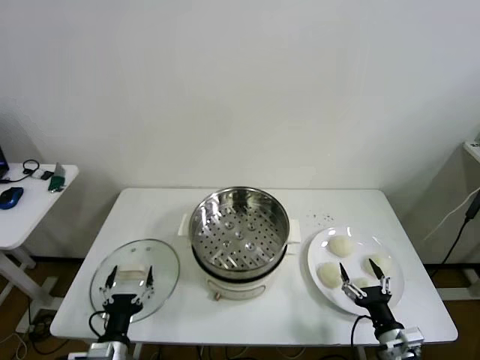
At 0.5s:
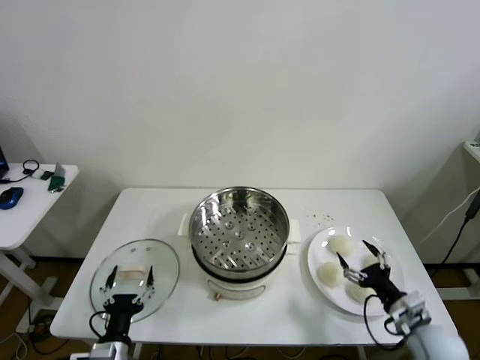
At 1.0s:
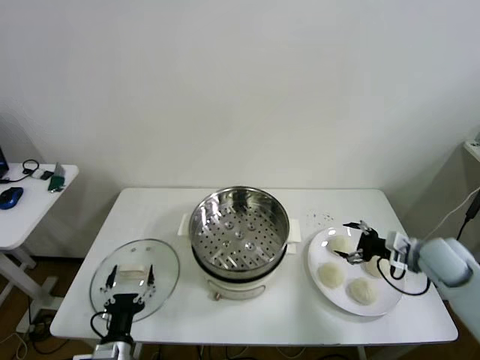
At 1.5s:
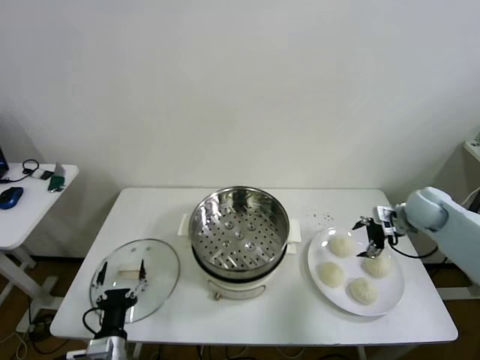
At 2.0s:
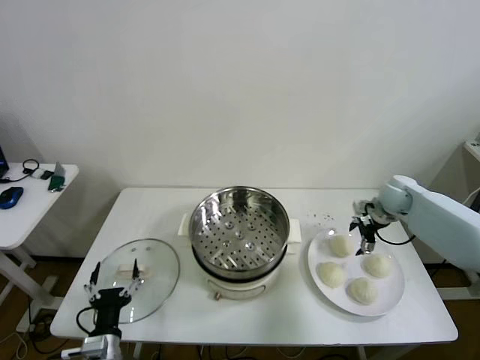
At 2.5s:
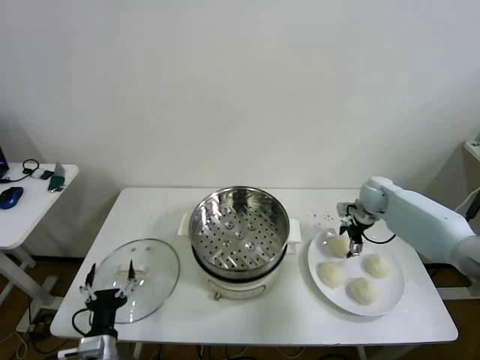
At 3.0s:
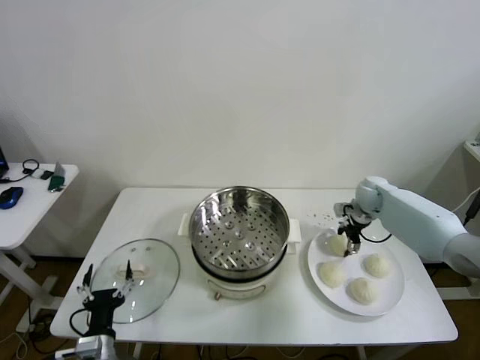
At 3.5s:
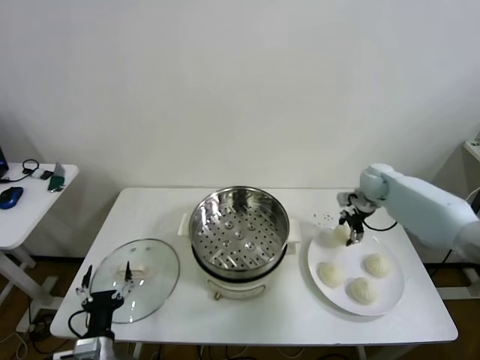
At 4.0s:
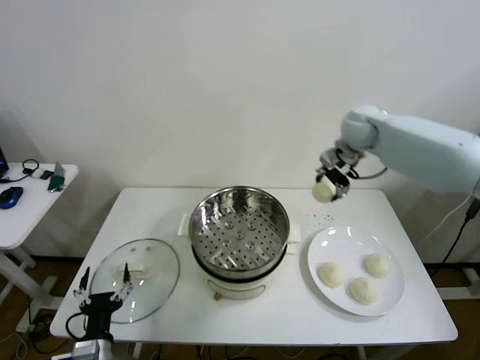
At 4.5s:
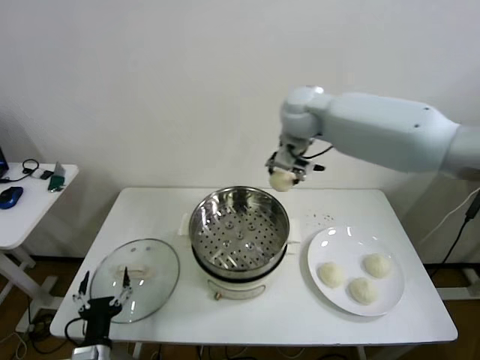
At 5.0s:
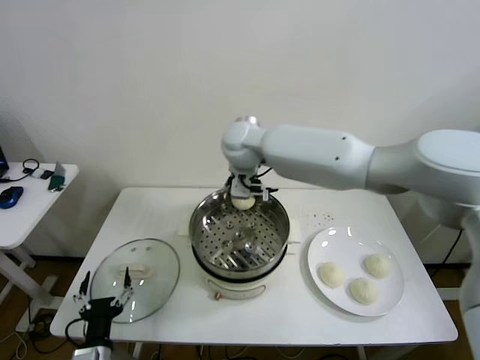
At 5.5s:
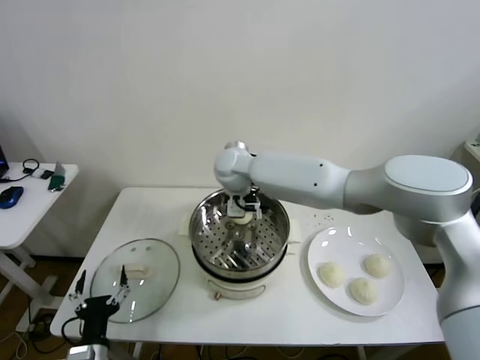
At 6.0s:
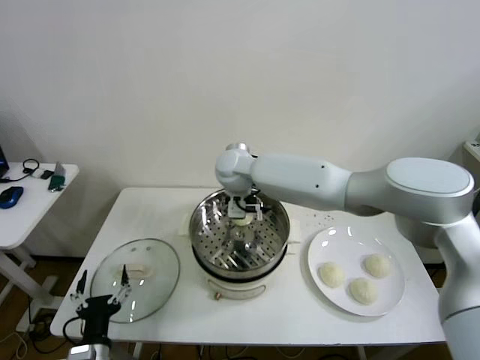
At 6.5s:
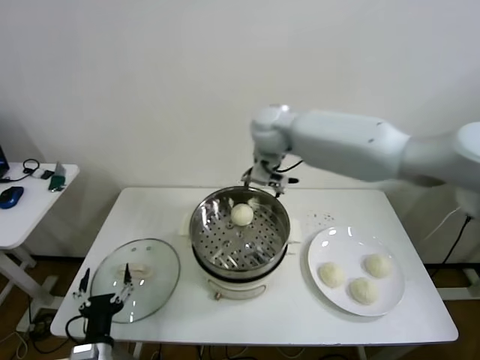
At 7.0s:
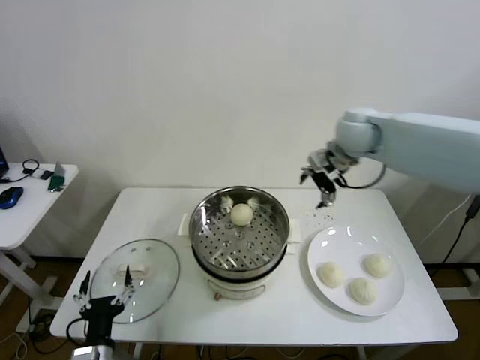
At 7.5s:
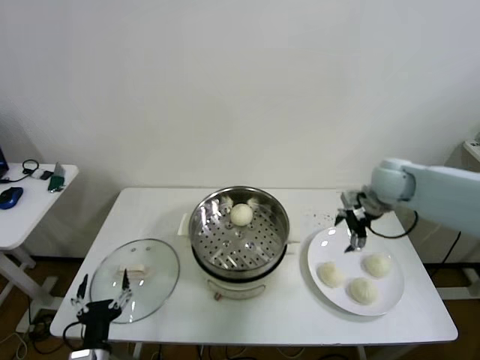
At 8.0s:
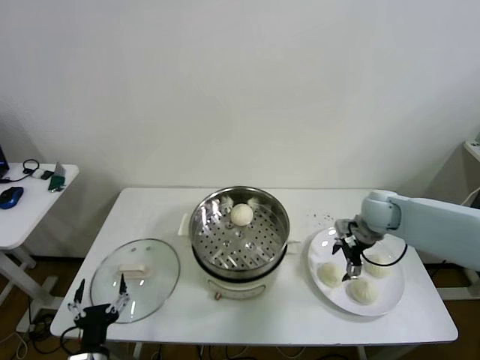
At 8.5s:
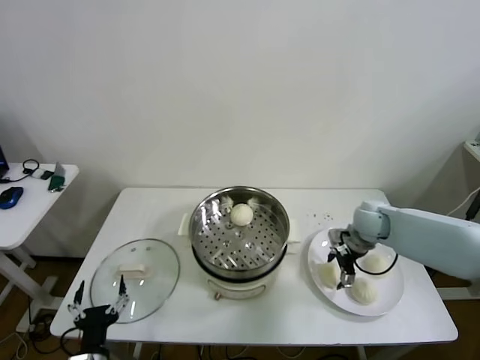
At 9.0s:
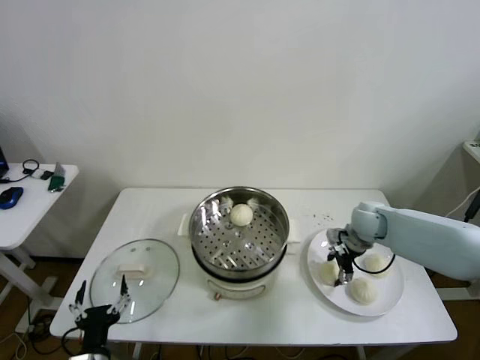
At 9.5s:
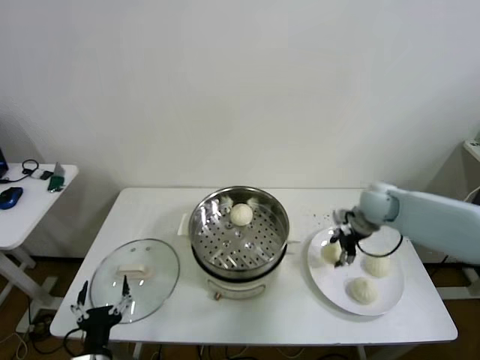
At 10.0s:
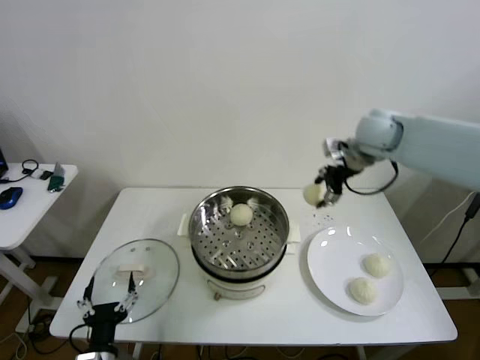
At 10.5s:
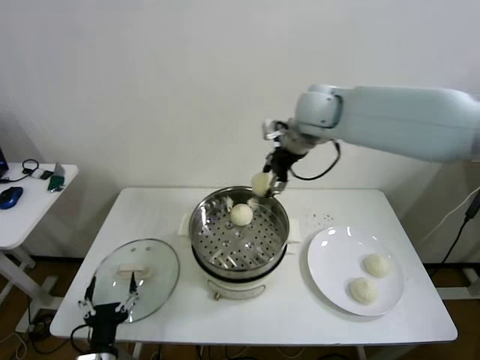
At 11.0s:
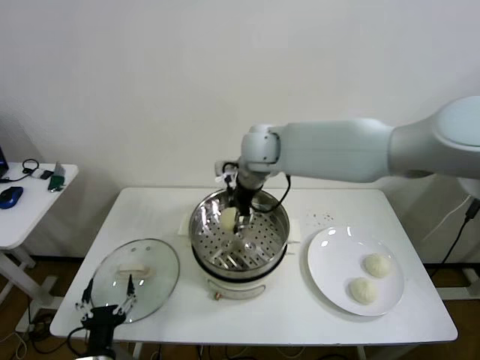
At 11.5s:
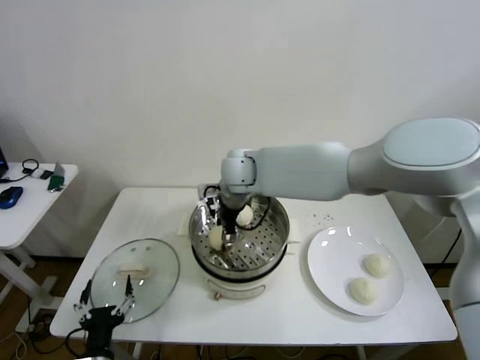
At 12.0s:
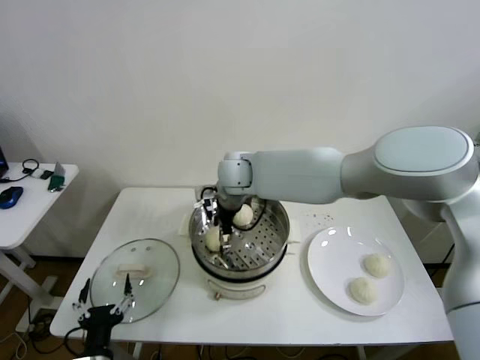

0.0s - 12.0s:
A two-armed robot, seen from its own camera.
Step, 0.0s - 2.5s: Grasp the baozi in the plate with right gripper.
Step, 3.5s - 5.5s: Place the baozi on the steamer with right gripper.
Step, 6.5s - 8.5s: Grasp the baozi in the plate with right gripper.
2.0s - 4.0s: The right gripper heads upward and to the left, covering about 25 cm, and closes.
4.0s - 6.0s: The right gripper moves to the left, about 25 cm, and opens up.
6.0s - 8.0s: The right gripper is displaced to the right by approximately 35 cm.
8.0s - 10.0s: The right gripper is displaced upward by roughly 20 cm, and closes its fingers.
10.0s - 12.0s: The right gripper is displaced to the left and downward by roughly 30 cm, and opens.

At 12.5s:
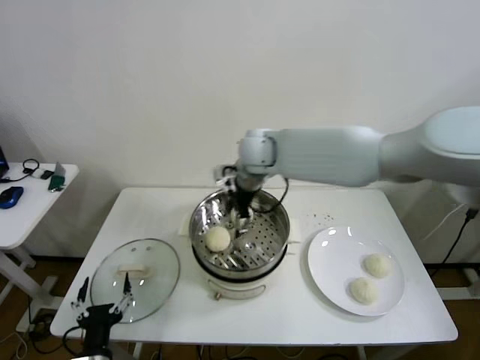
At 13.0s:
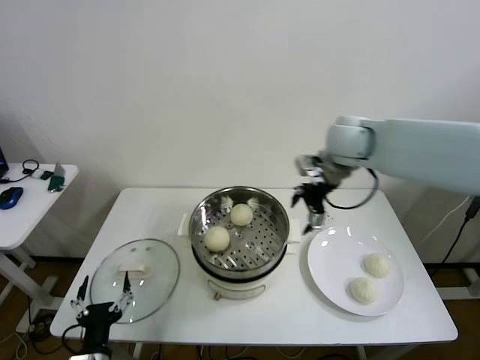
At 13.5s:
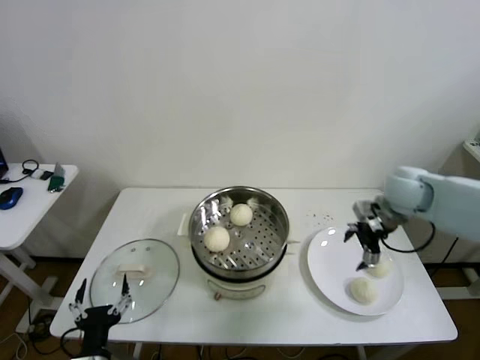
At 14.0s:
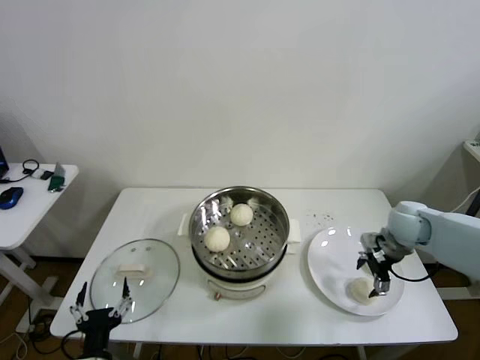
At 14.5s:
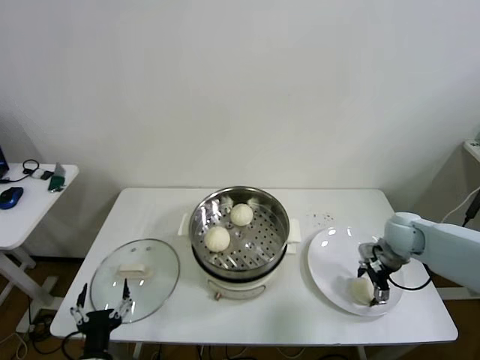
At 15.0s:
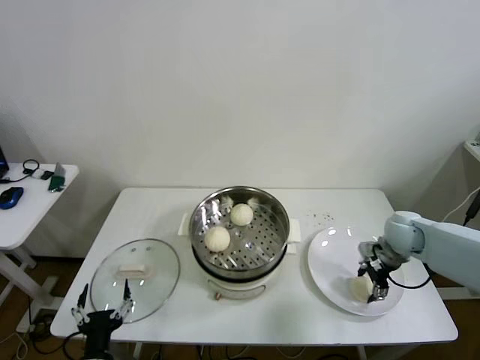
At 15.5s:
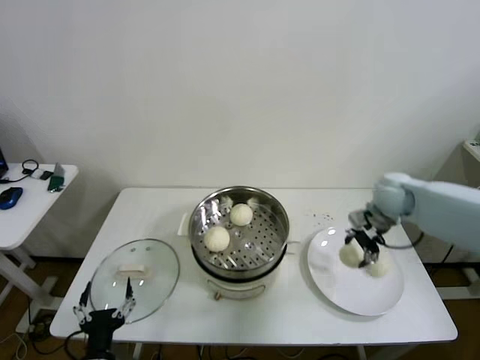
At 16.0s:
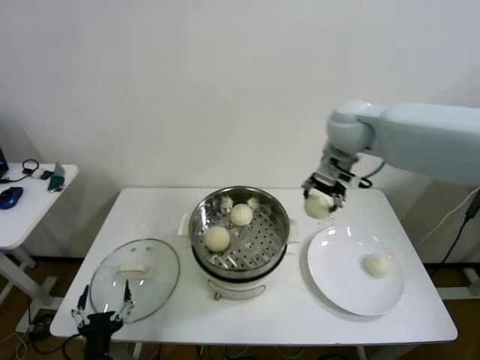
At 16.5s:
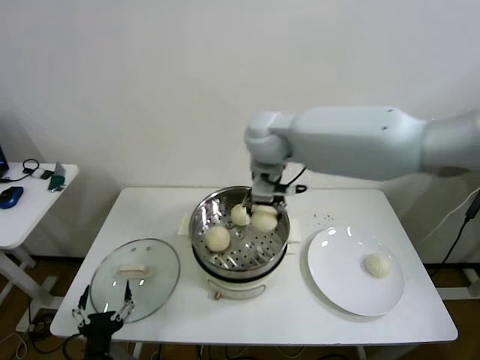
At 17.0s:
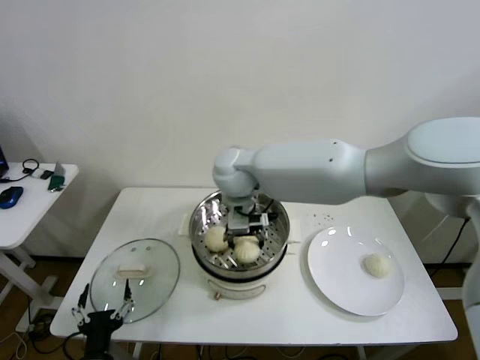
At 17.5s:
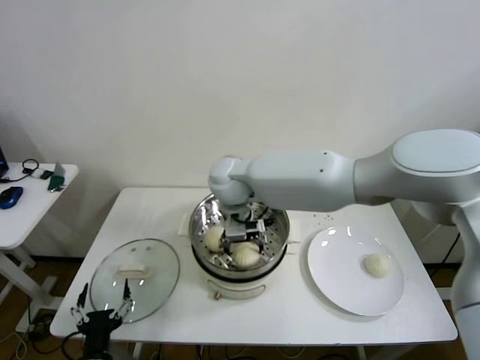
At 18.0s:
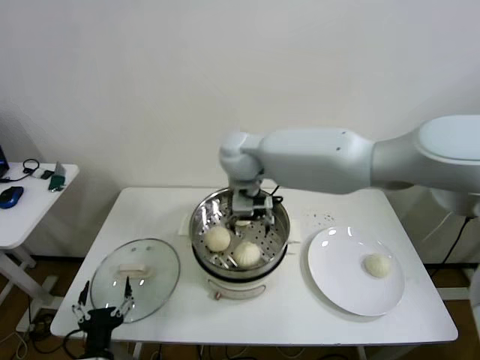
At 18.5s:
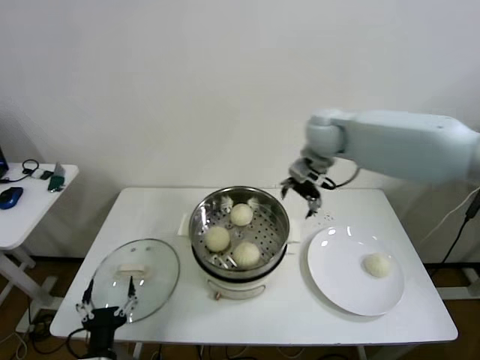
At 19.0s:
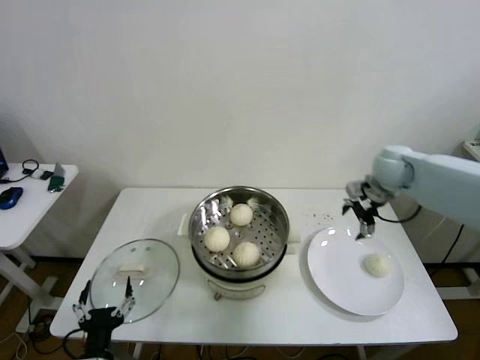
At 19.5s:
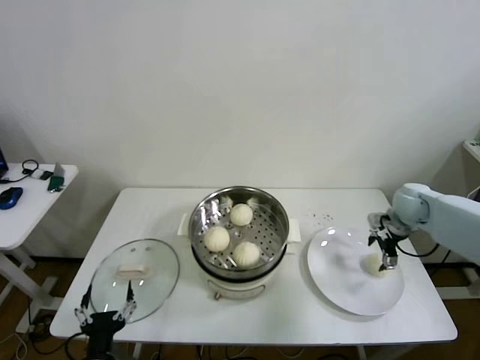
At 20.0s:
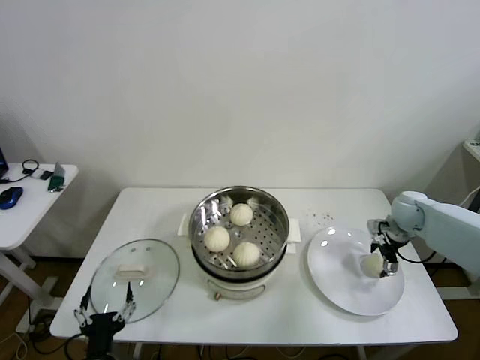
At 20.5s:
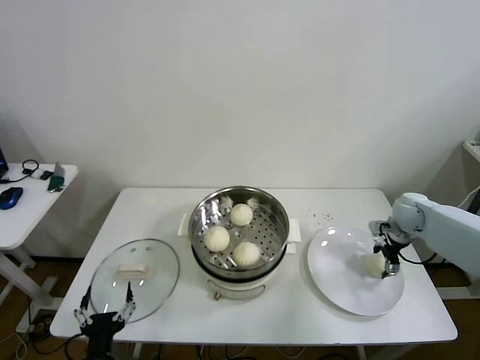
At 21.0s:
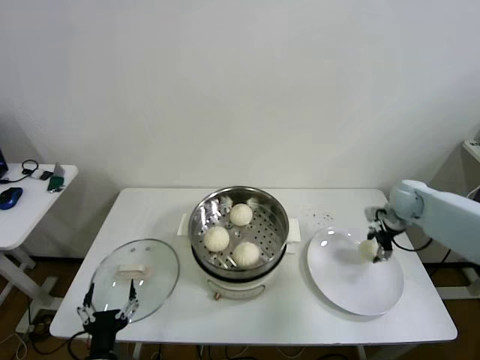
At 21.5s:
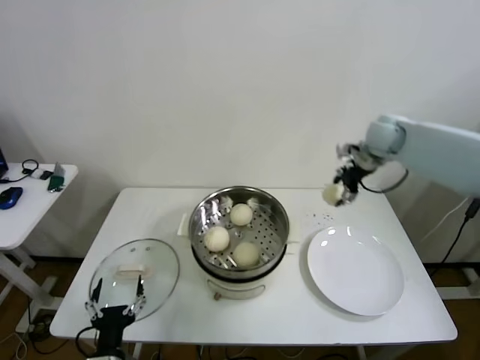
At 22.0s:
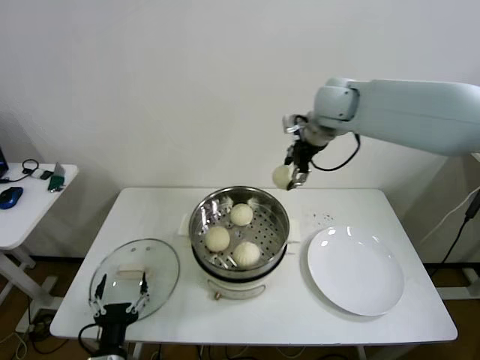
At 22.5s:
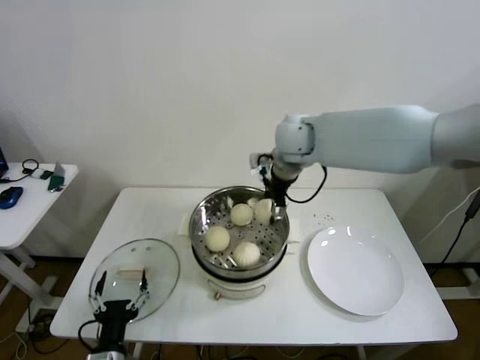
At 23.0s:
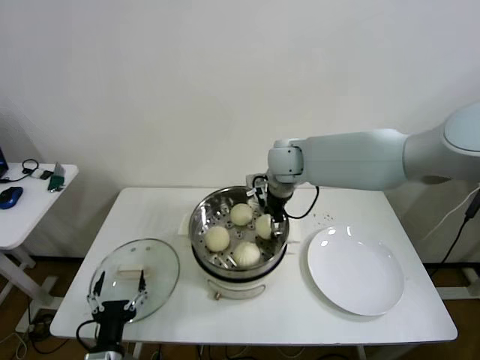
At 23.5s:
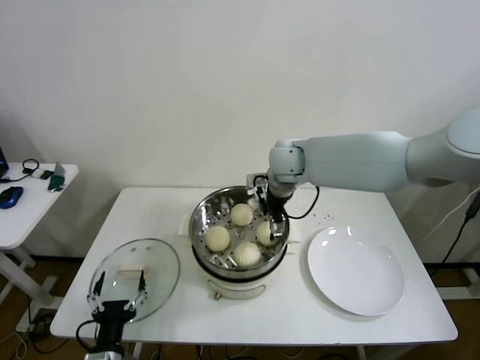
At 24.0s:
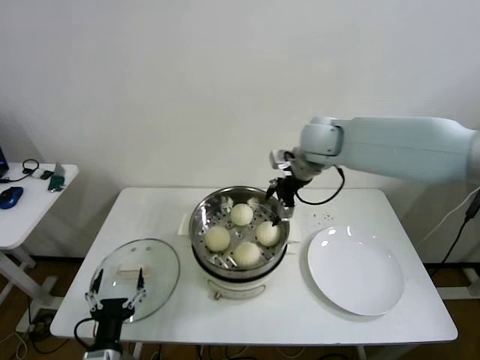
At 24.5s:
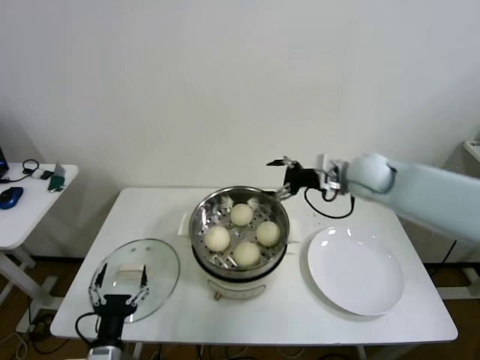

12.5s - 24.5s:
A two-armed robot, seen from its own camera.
Step, 12.5s - 14.5s: Grasp the baozi in the plate with right gripper.
Step, 15.0s - 17.5s: Place the baozi on the steamer with right gripper.
Step, 18.0s - 20.5s: Grasp the baozi in the plate with right gripper.
Step, 21.0s - 23.5s: Place the baozi on the steamer with right gripper.
12.5s - 14.5s: The right gripper travels to the right and downward by roughly 40 cm.
14.5s - 16.5s: The right gripper moves to the left and upward, some 40 cm, and closes.
16.5s - 18.5s: The right gripper goes approximately 15 cm to the right, and opens its fingers.
18.5s - 20.5s: The right gripper shifts approximately 35 cm to the right and downward, and closes its fingers.
20.5s - 22.5s: The right gripper travels to the left and upward by approximately 40 cm.
22.5s - 24.5s: The right gripper shifts some 20 cm to the right and downward, and opens its fingers.

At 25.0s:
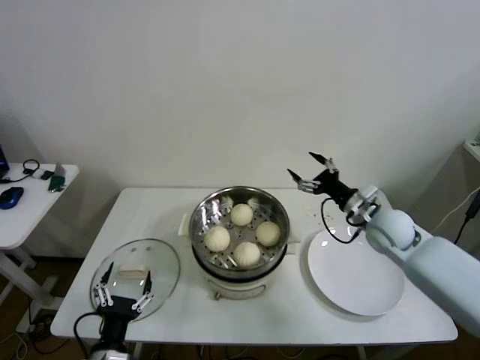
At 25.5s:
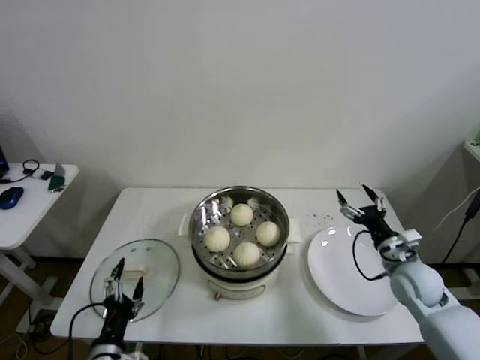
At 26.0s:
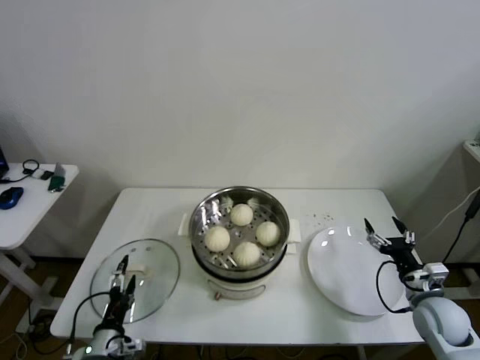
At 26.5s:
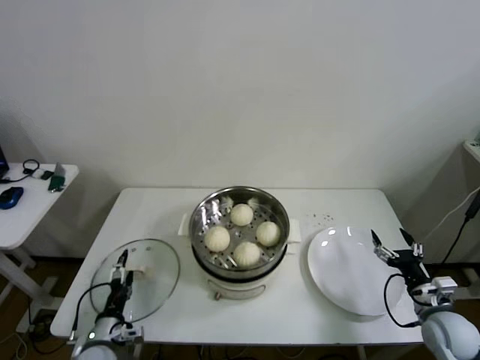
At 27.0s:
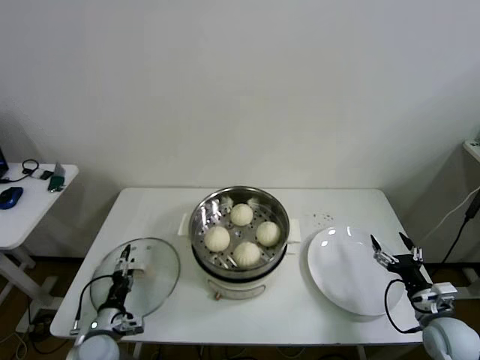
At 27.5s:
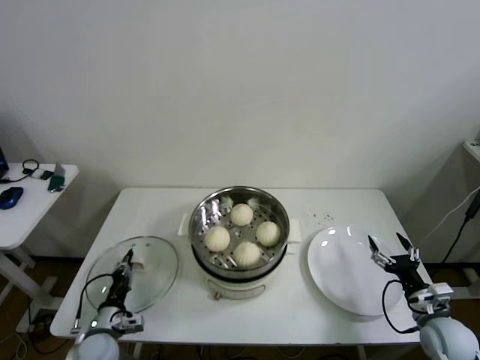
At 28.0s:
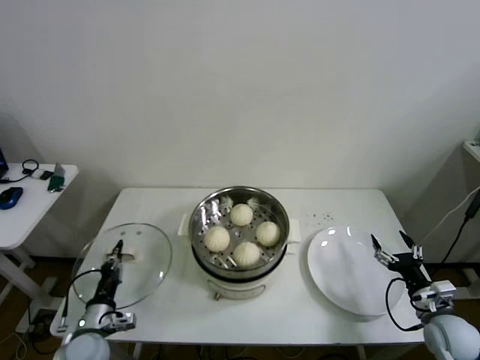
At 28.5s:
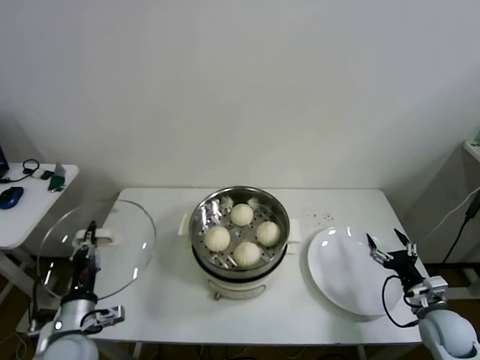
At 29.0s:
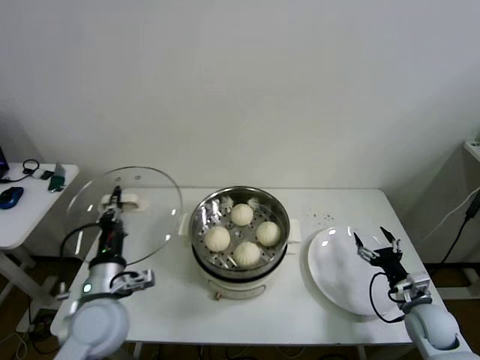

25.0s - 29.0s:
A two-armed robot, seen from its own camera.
Step, 25.0s - 27.5s: Grasp the pot lid with left gripper.
25.0s - 27.0s: The left gripper shifts some 15 cm forward, downward and to the left, while the right gripper heads backward, downward and to the right, covering some 25 cm.
27.0s - 29.0s: The left gripper is displaced upward by approximately 20 cm, and closes up.
